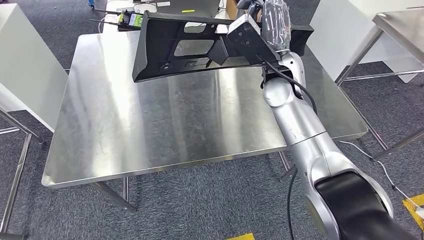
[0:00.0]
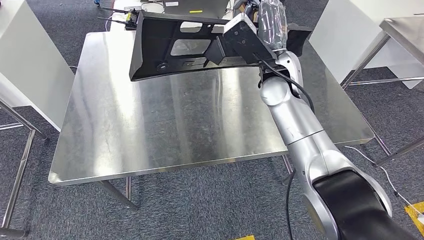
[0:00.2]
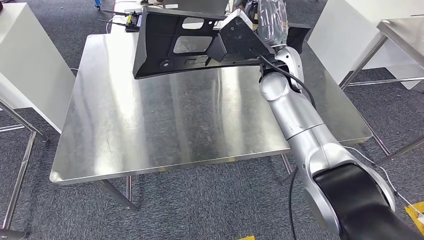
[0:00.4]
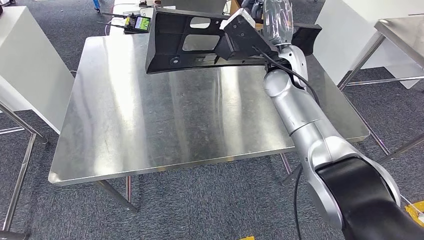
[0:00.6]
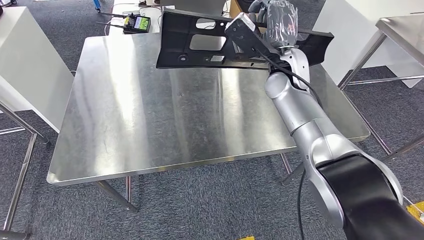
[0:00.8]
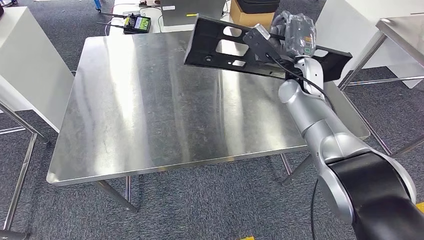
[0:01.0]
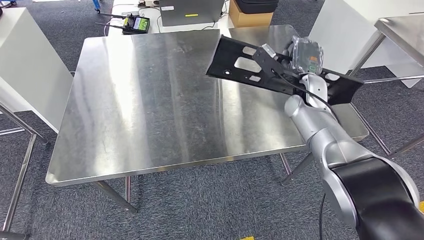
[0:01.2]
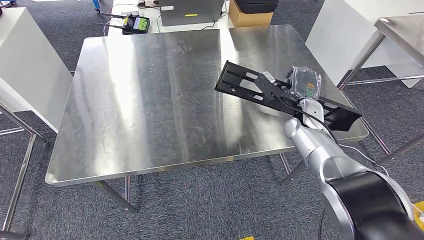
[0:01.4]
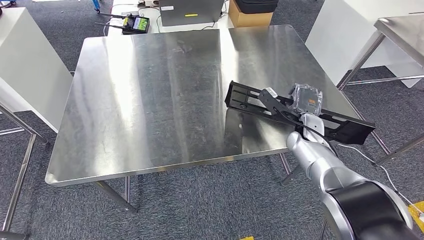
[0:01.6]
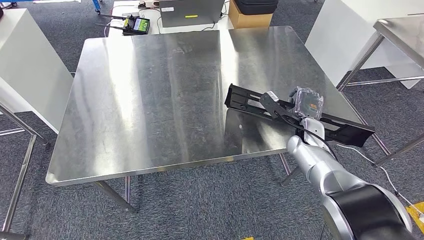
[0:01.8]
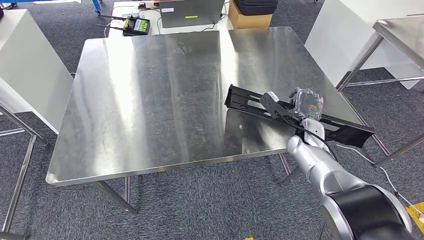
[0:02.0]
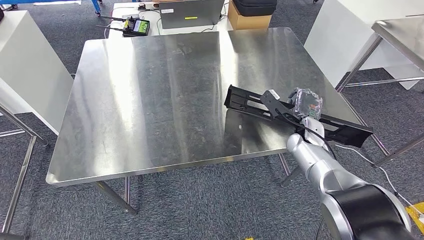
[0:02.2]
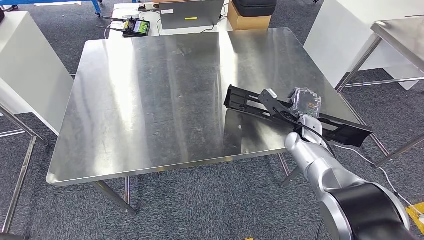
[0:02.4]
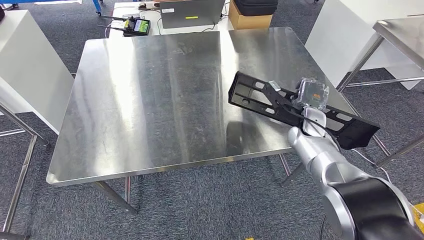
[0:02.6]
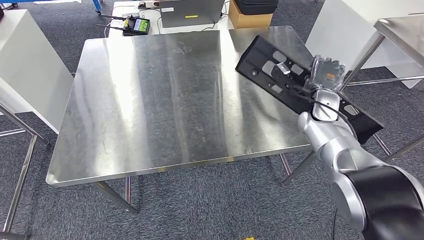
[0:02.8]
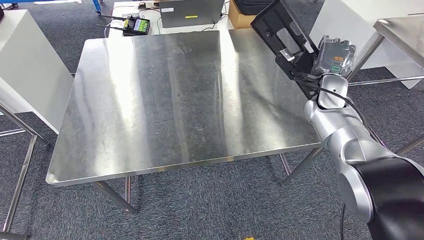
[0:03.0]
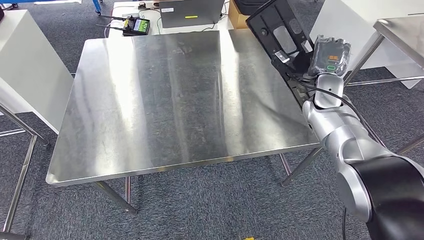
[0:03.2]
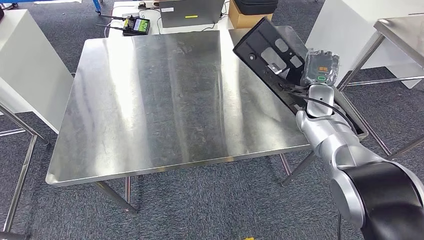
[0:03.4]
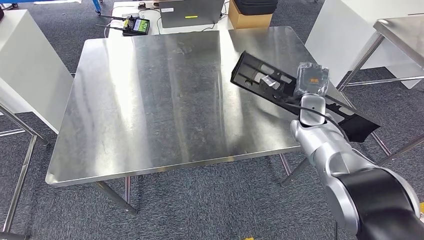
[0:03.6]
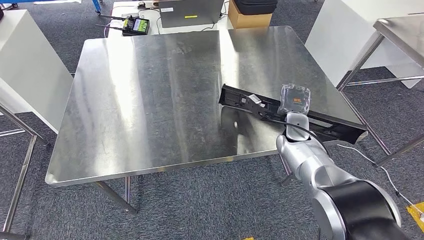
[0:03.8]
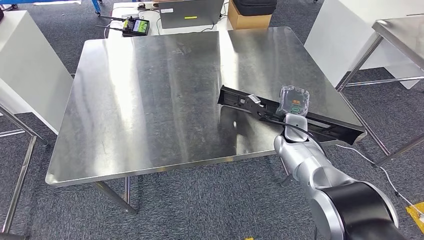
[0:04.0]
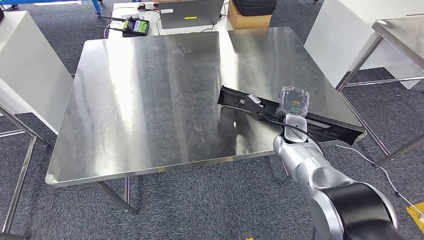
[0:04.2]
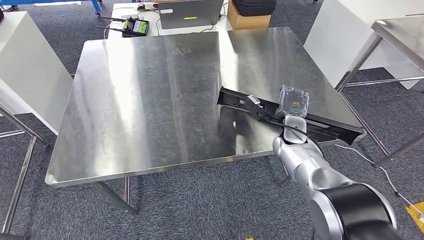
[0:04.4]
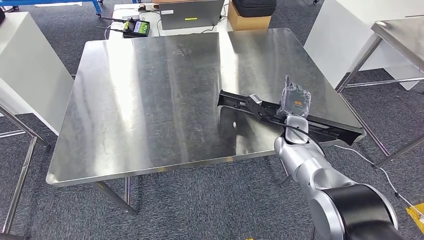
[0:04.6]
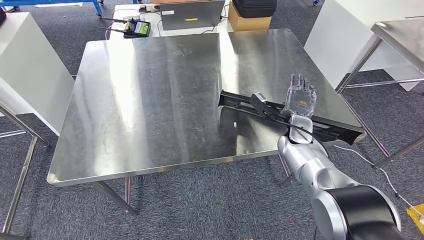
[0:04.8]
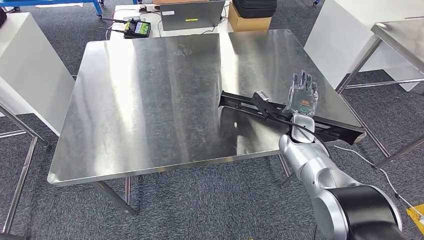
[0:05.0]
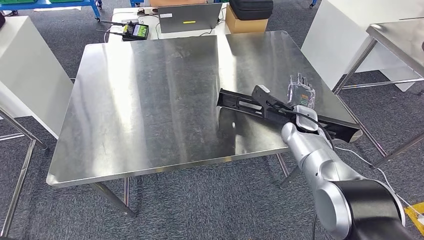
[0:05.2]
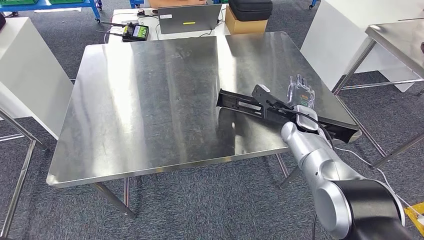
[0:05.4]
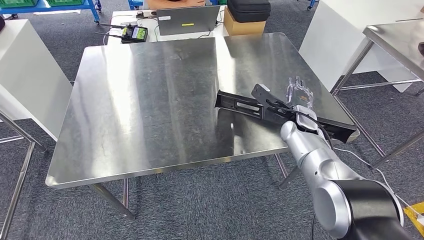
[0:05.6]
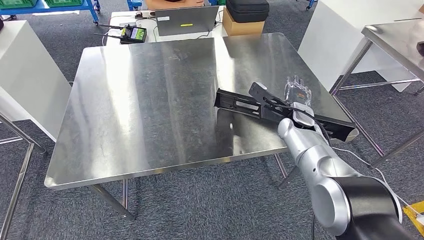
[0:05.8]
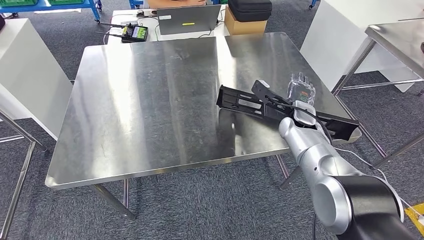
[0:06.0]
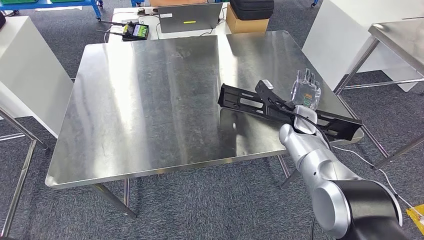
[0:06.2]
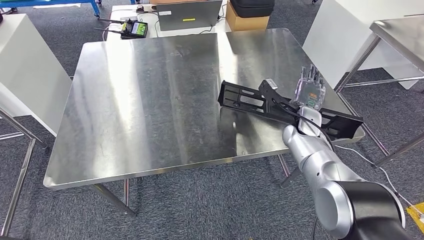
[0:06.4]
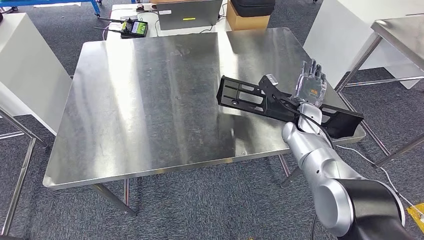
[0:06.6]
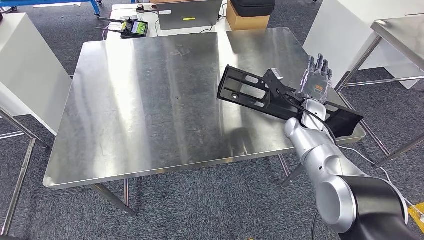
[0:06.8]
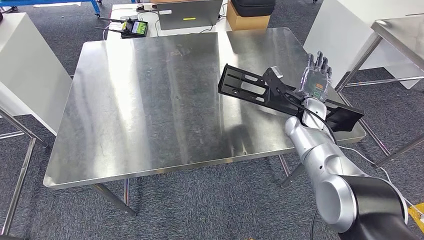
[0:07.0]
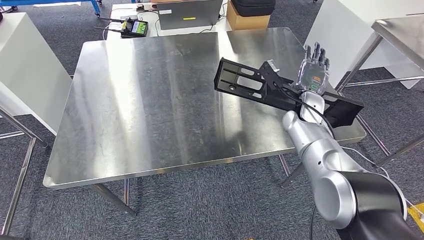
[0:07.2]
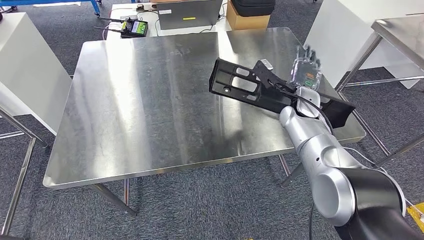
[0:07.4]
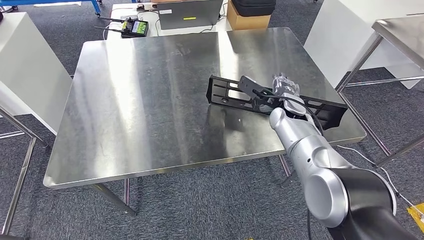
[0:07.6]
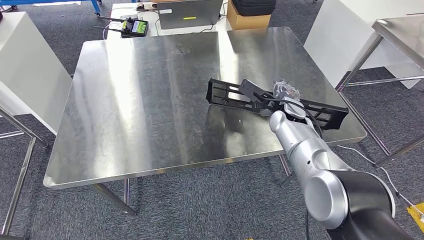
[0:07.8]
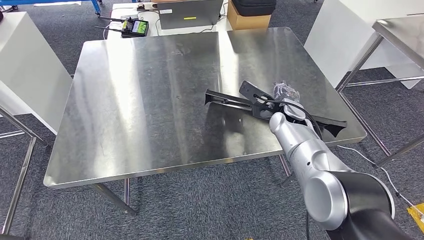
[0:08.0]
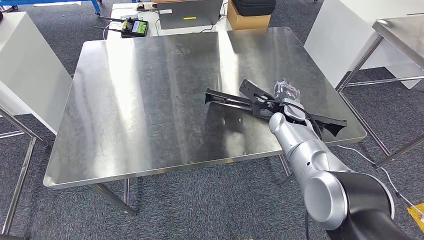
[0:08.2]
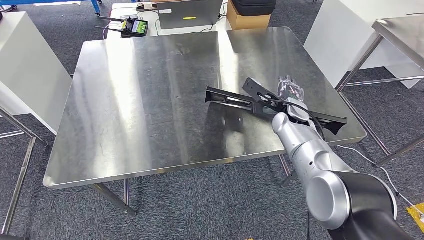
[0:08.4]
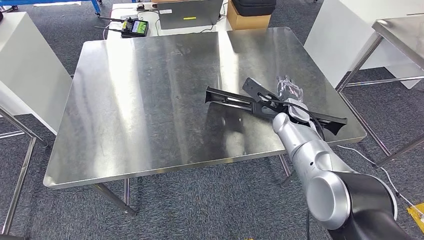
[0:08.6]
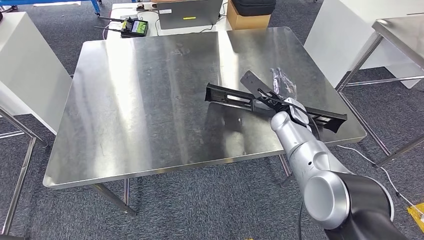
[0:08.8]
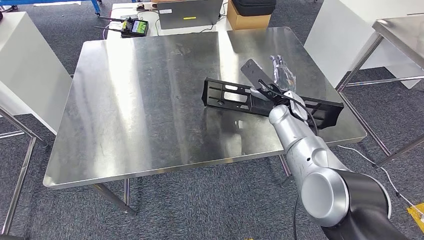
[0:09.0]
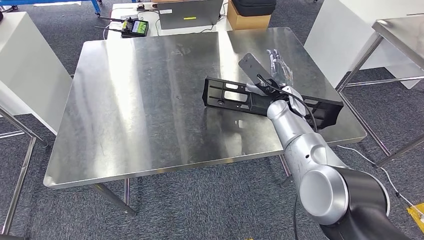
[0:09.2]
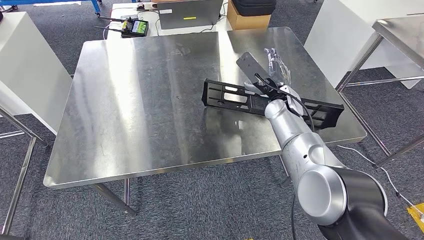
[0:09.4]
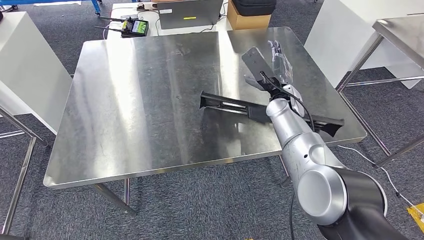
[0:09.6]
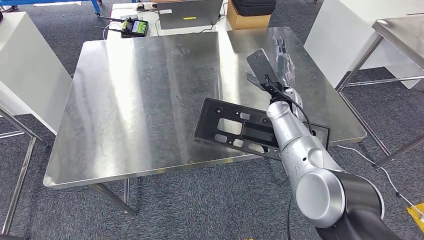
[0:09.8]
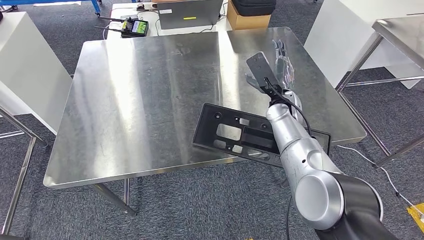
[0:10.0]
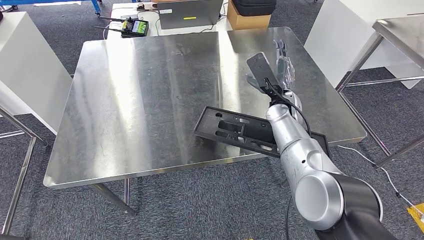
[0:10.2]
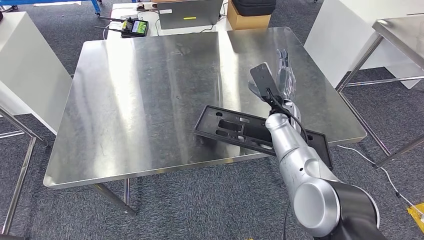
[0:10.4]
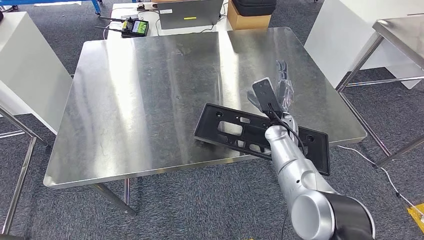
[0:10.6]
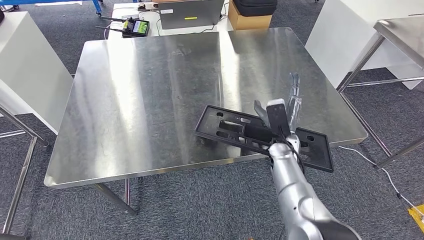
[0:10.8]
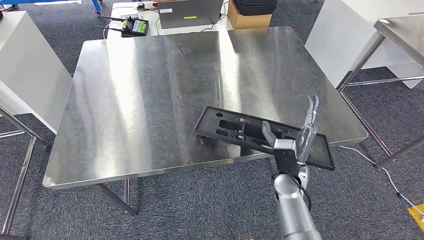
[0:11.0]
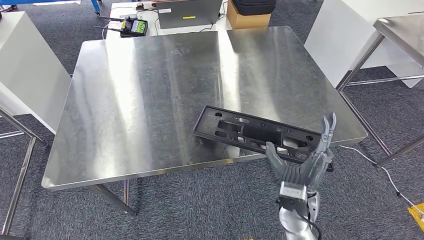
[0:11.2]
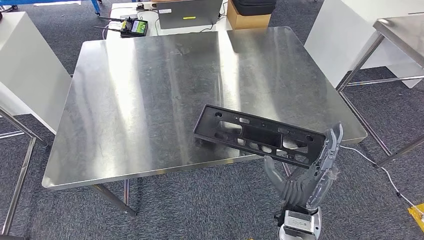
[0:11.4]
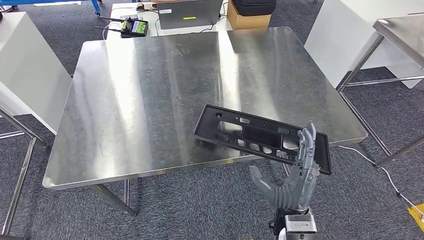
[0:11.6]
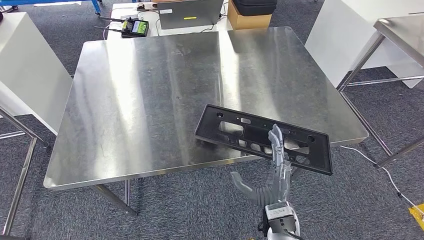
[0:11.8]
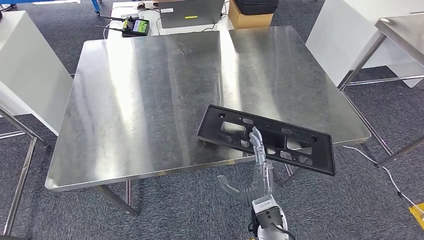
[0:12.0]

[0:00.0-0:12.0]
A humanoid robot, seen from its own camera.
0:10.4 to 0:12.0: The right hand moves backward and downward, some 25 cm.

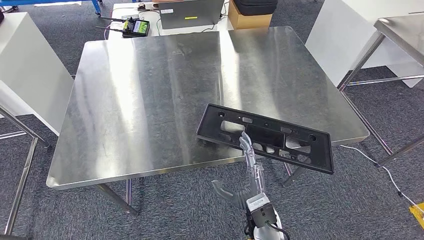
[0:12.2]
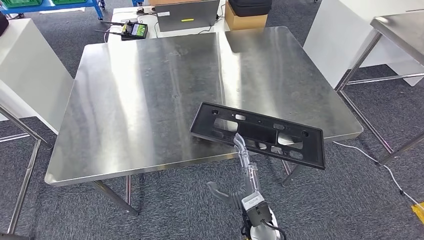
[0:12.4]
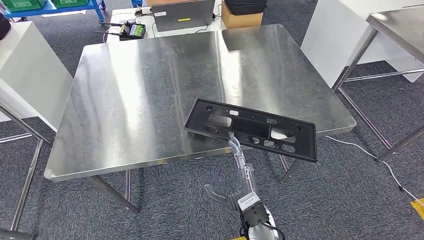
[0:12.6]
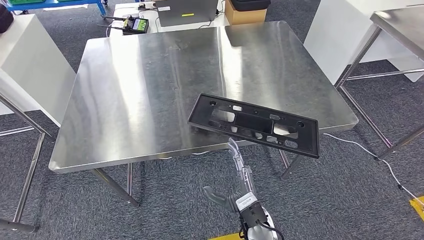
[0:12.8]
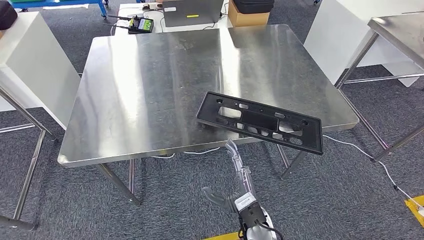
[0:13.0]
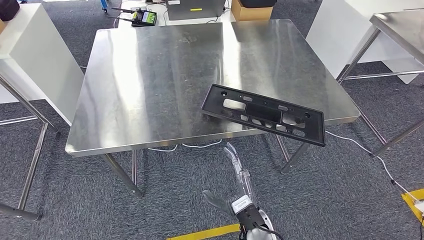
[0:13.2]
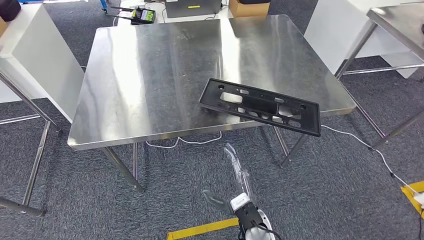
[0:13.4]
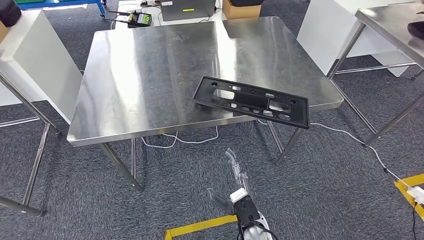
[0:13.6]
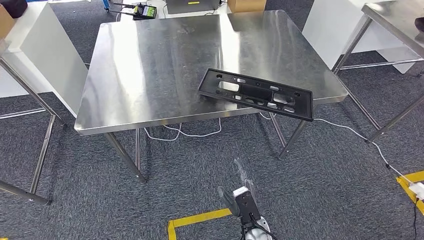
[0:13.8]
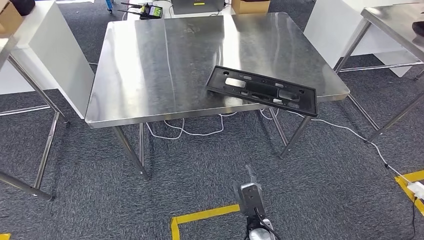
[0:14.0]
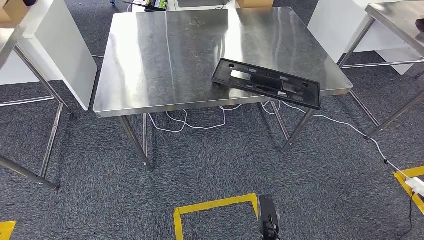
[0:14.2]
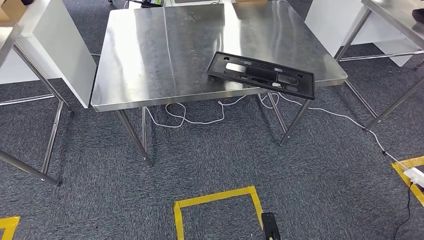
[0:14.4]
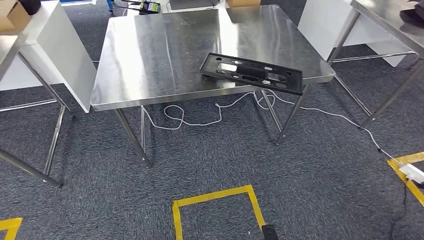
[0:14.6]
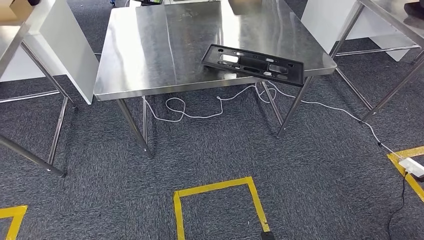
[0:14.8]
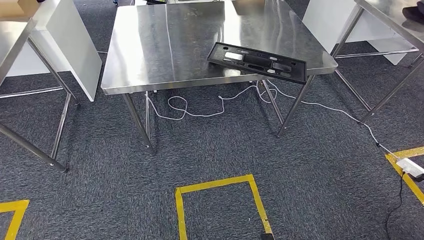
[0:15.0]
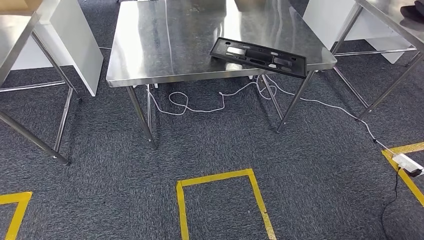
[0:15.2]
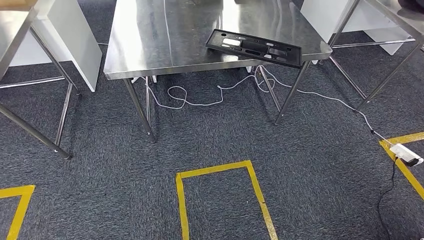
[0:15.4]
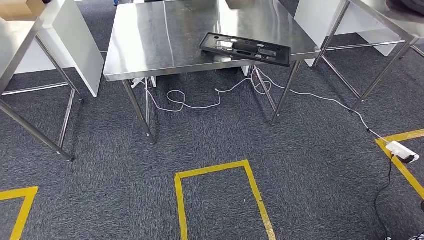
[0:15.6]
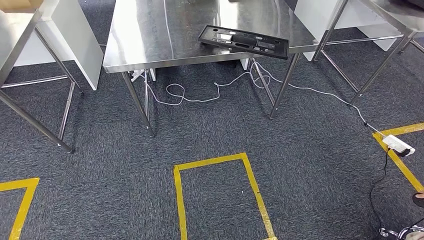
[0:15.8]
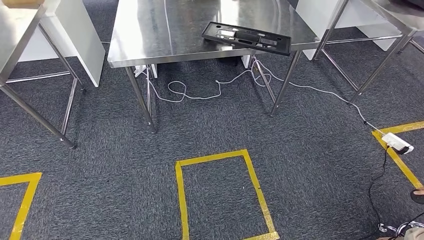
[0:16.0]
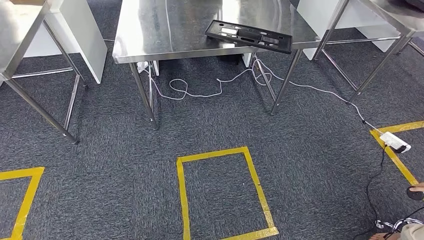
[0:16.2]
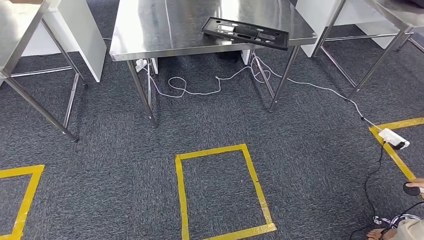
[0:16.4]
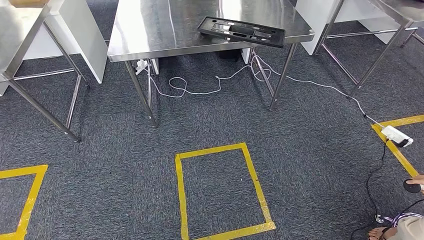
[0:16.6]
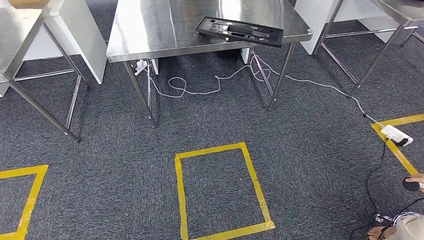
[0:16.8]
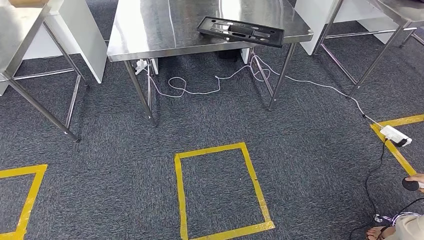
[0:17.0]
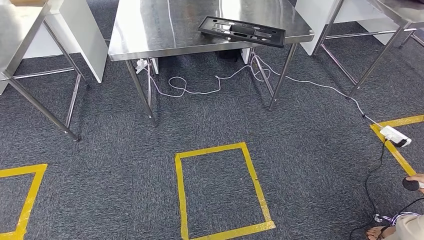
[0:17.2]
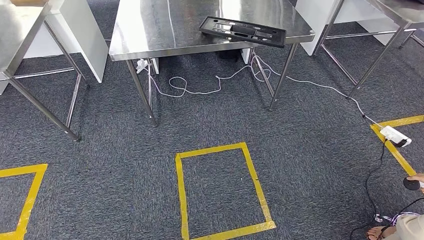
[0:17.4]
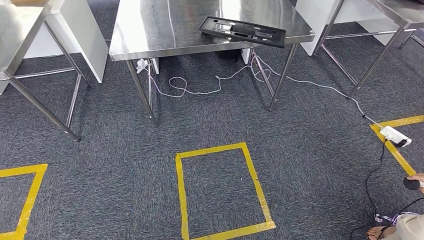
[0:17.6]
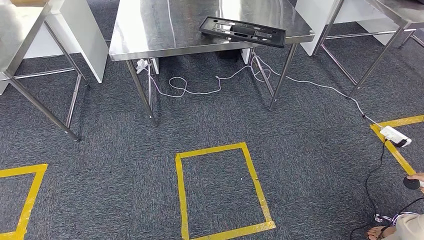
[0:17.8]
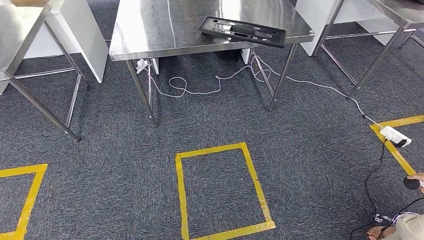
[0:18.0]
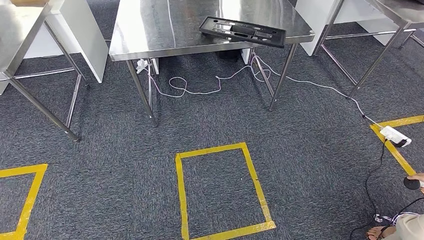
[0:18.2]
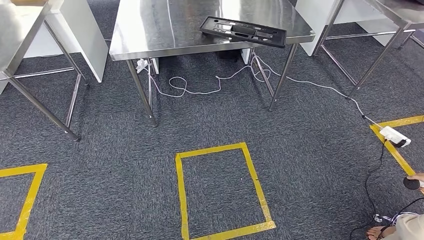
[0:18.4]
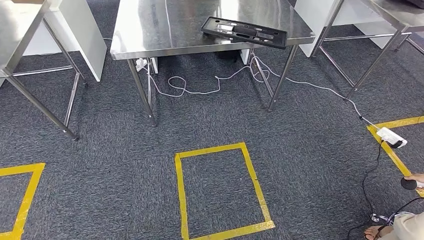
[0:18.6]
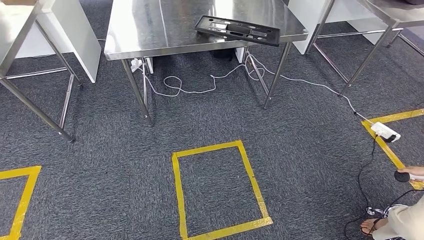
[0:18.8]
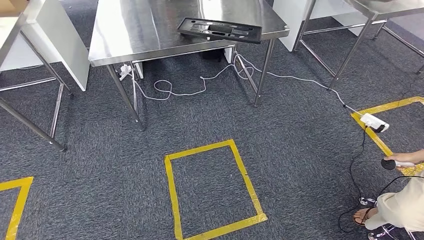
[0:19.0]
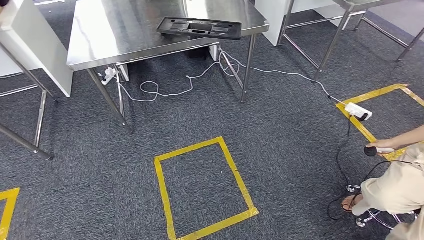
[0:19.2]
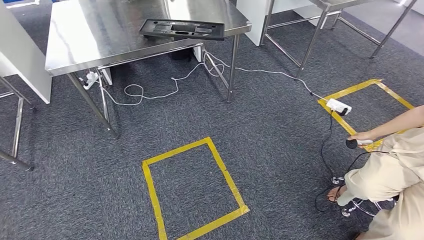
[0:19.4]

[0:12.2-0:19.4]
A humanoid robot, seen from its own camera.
Step, 0:12.2 to 0:14.6: Insert the large material into the corresponding slot on the workbench.
0:16.6 to 0:18.0: The hands move only a little.
